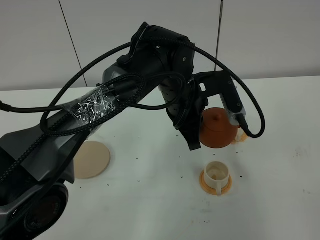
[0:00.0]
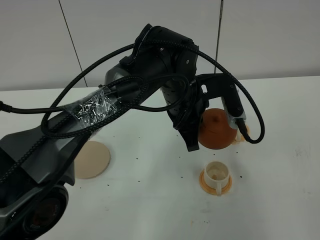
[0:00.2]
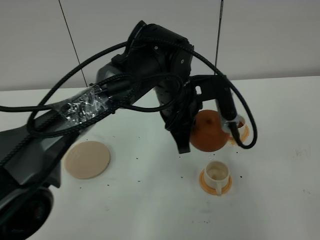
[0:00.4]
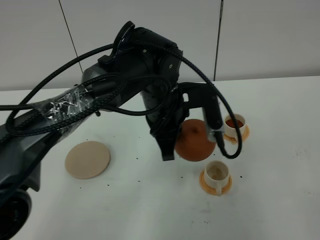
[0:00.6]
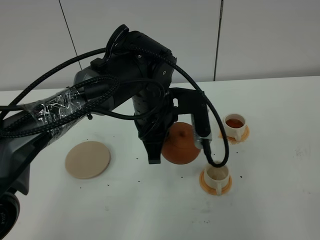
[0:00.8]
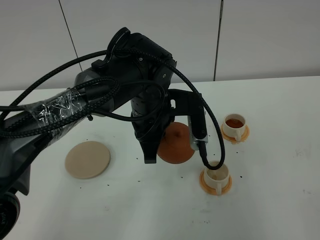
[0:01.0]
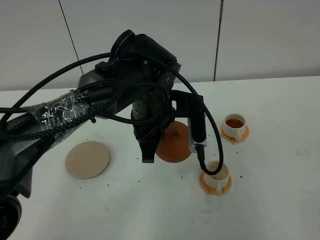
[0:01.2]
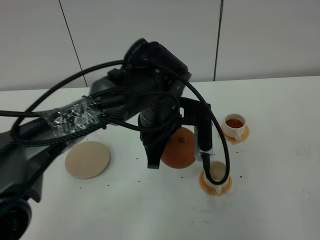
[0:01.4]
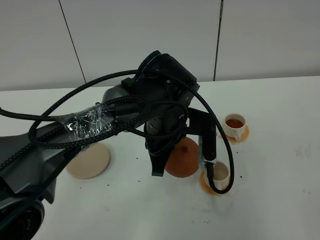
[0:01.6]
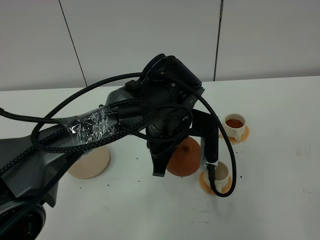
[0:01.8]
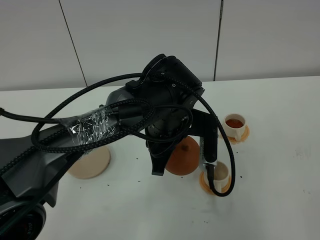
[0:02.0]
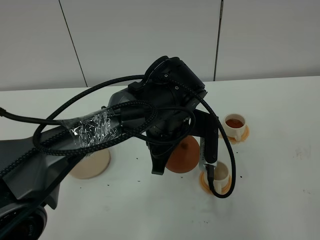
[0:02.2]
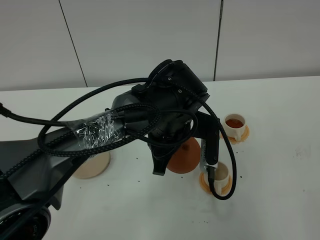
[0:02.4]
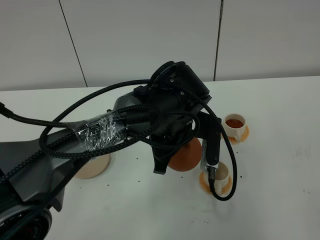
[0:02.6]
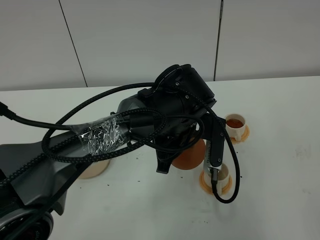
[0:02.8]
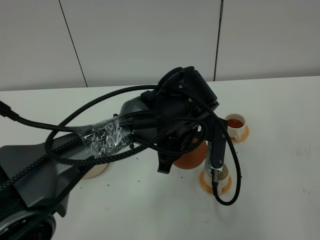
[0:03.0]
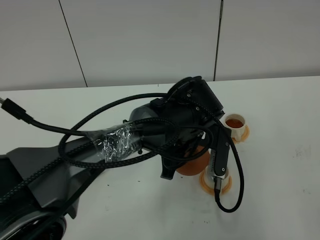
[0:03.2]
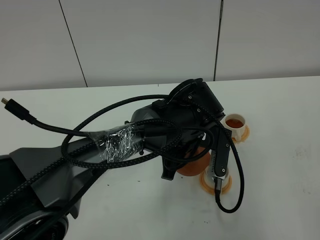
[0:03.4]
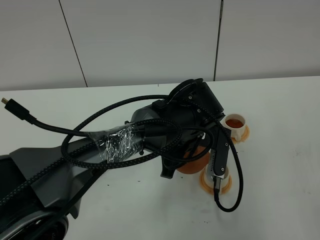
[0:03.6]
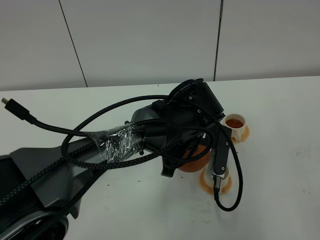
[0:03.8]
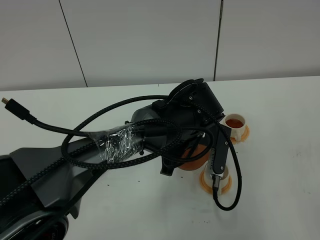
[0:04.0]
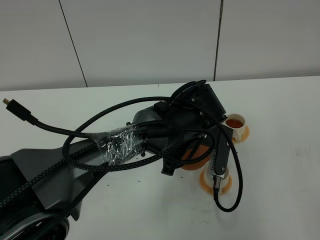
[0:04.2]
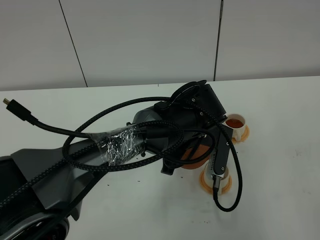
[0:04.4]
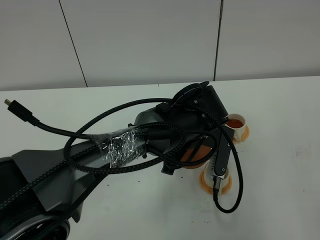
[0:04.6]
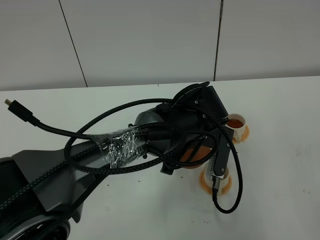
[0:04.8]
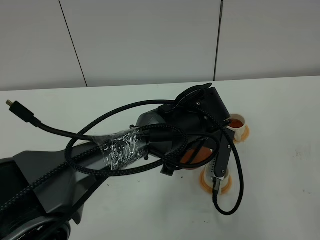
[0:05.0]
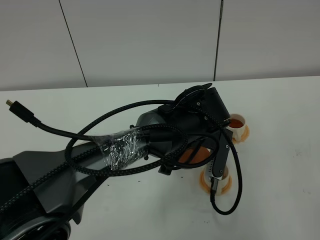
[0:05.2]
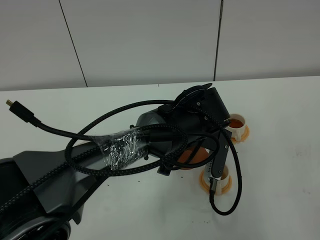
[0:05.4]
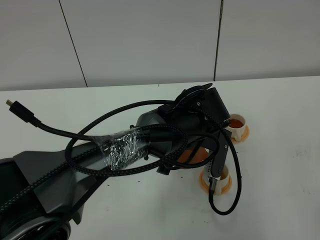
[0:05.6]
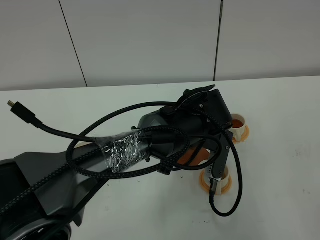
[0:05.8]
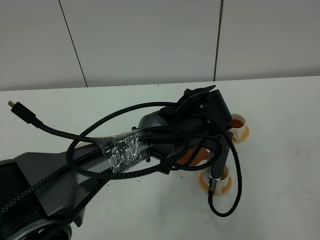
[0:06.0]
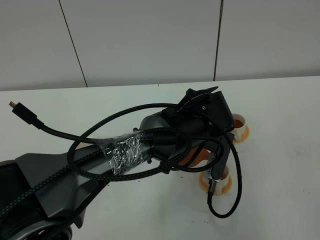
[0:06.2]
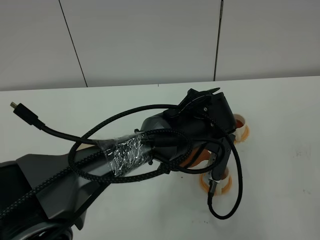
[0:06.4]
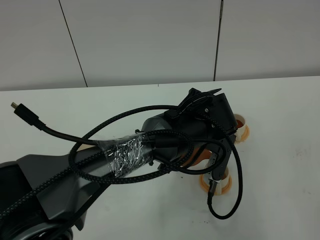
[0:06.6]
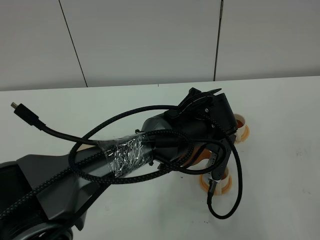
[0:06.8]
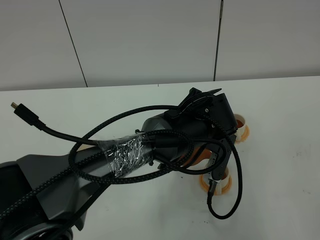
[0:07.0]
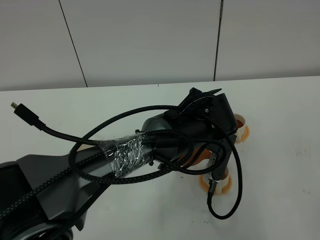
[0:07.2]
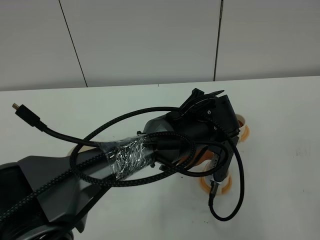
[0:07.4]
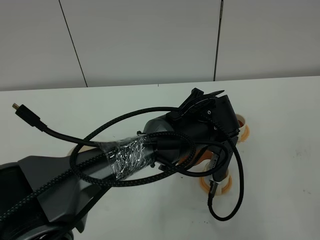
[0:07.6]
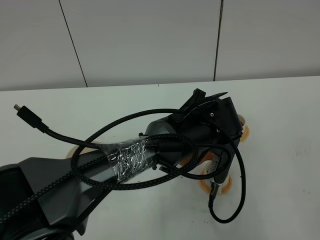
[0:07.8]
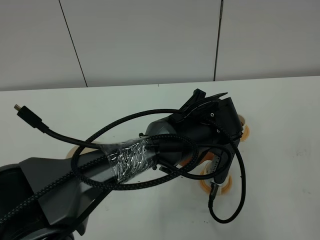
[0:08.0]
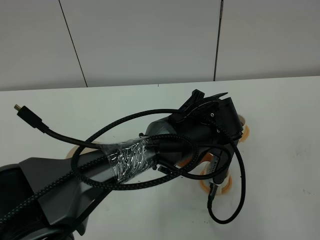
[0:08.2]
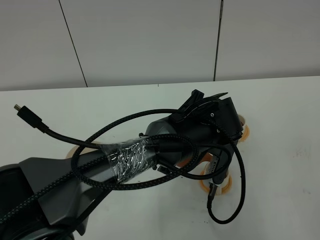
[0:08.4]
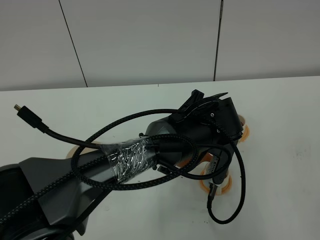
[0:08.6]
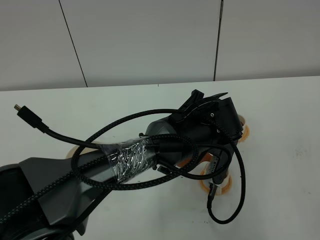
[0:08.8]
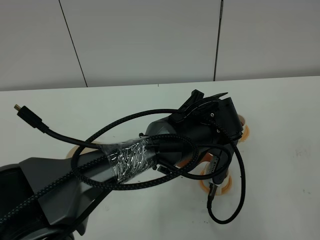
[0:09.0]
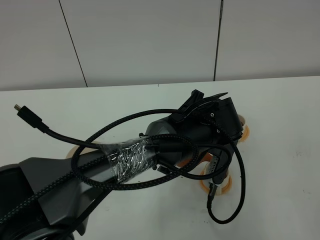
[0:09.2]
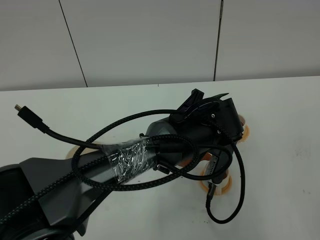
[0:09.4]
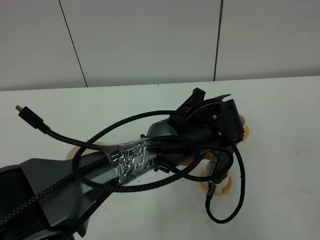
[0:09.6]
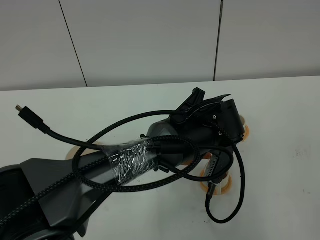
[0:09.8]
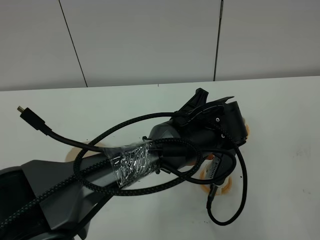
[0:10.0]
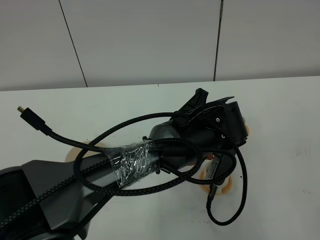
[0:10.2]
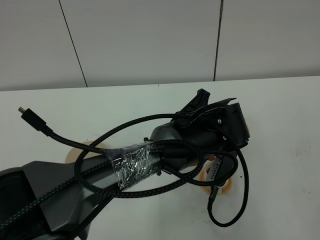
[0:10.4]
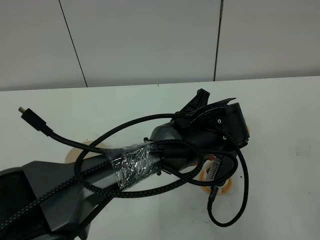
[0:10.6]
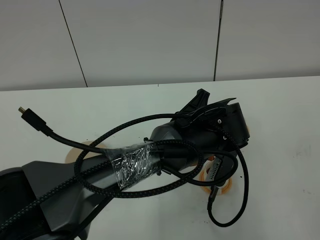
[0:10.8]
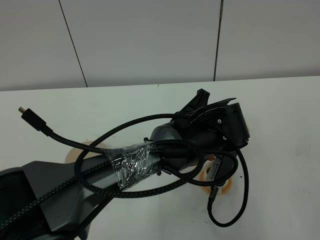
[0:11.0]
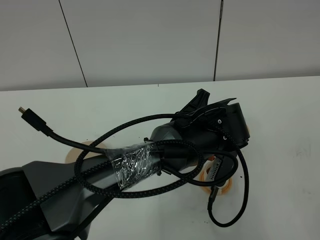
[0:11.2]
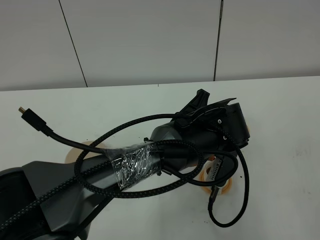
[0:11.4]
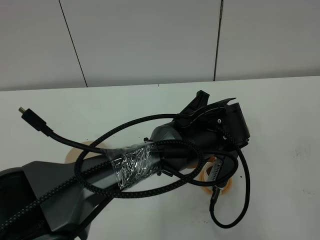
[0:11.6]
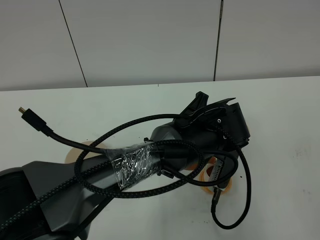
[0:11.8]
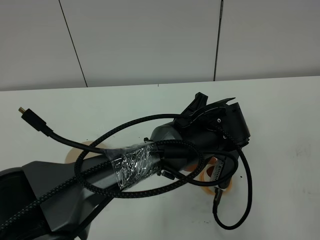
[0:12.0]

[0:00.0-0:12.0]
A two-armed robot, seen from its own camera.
Task of the whole recording: grasp the brown teapot and pour the tea into the two white teacups one by one, put the brown teapot back in its original place.
0:01.6 to 0:04.4: There are only small adjustments of the grippers.
0:04.4 to 0:06.0: The grippers stay close to where they were, moving slightly.
0:06.0 to 0:07.6: The two grippers keep their place.
0:07.6 to 0:10.4: Both grippers stay put.
0:10.4 to 0:12.0: Neither gripper changes place.

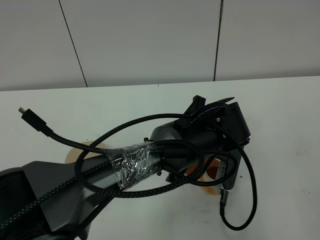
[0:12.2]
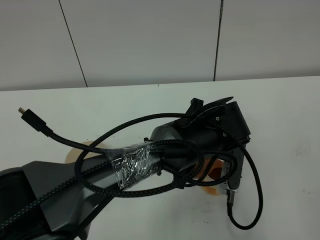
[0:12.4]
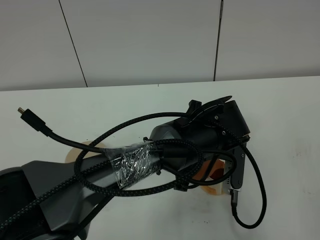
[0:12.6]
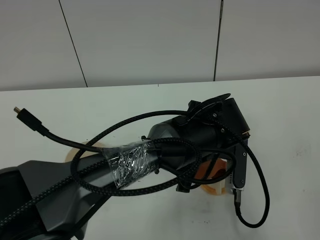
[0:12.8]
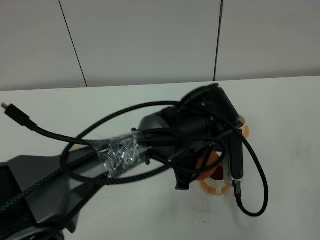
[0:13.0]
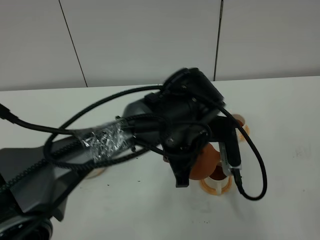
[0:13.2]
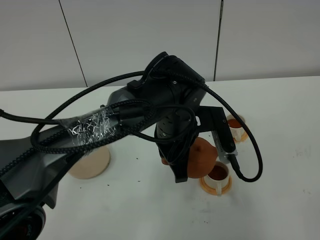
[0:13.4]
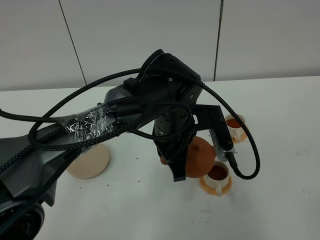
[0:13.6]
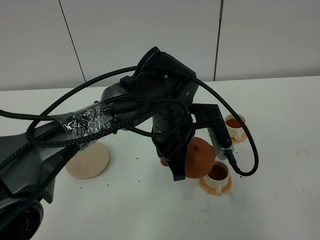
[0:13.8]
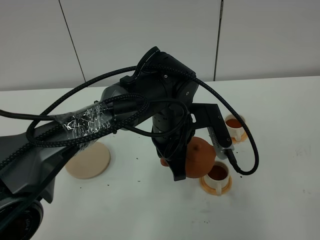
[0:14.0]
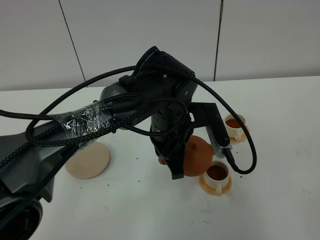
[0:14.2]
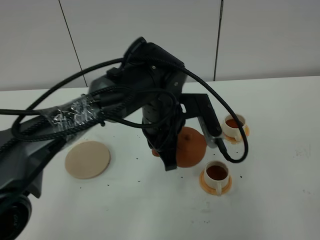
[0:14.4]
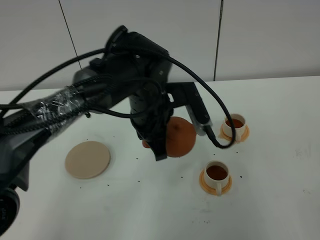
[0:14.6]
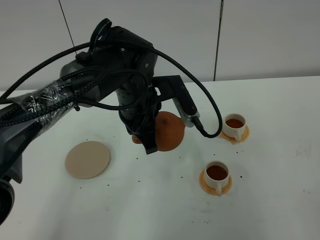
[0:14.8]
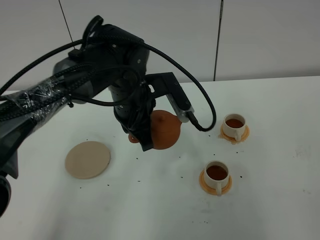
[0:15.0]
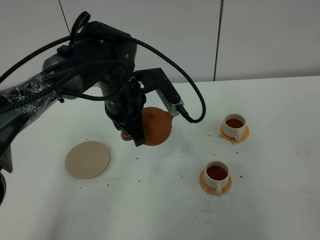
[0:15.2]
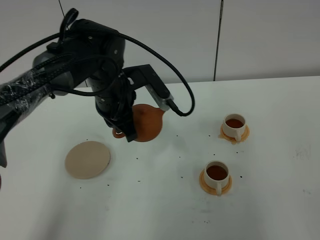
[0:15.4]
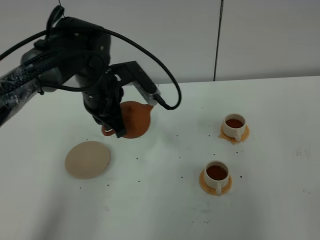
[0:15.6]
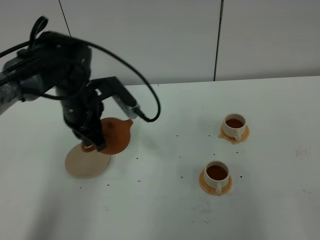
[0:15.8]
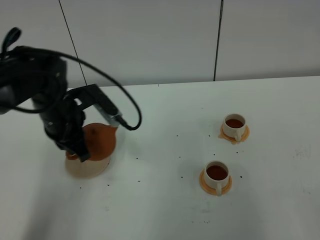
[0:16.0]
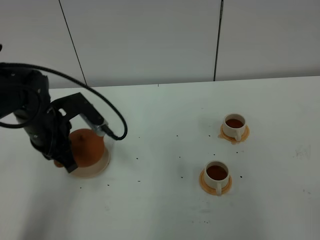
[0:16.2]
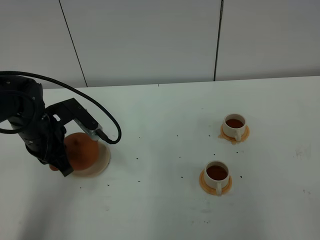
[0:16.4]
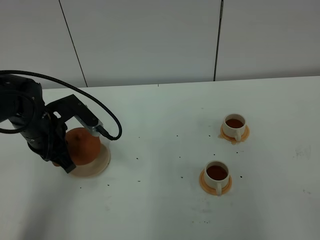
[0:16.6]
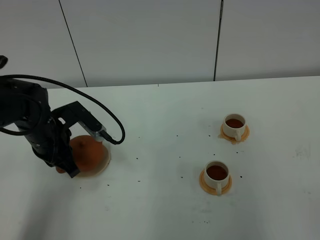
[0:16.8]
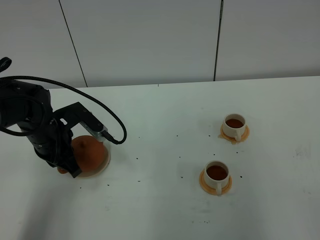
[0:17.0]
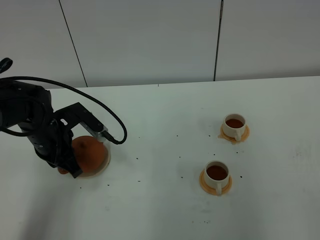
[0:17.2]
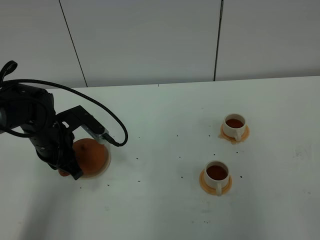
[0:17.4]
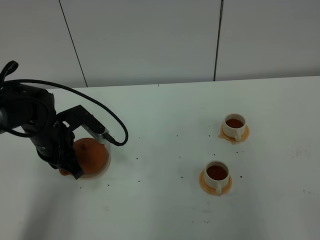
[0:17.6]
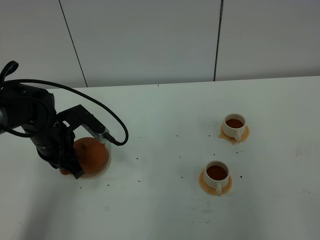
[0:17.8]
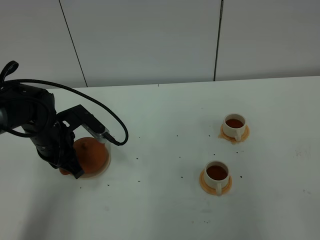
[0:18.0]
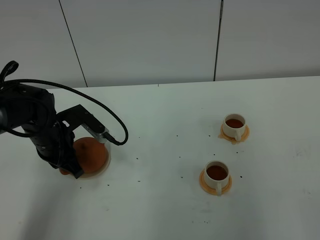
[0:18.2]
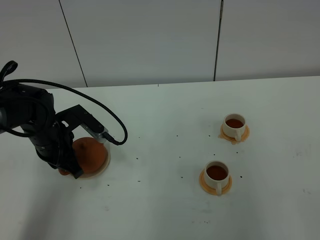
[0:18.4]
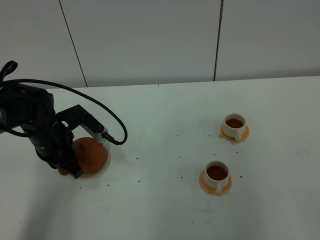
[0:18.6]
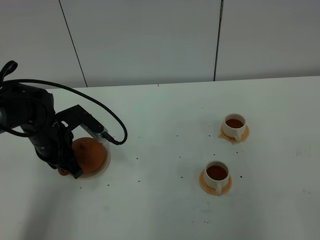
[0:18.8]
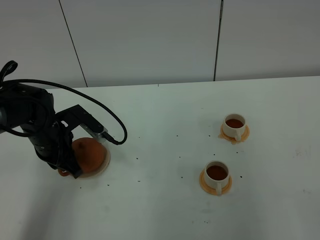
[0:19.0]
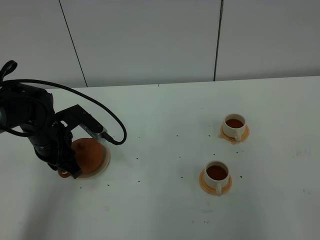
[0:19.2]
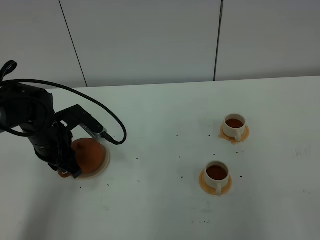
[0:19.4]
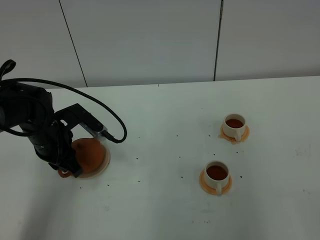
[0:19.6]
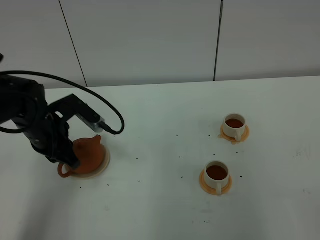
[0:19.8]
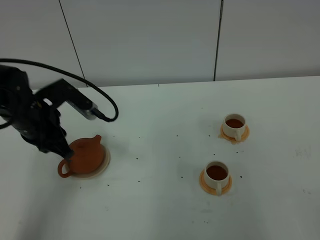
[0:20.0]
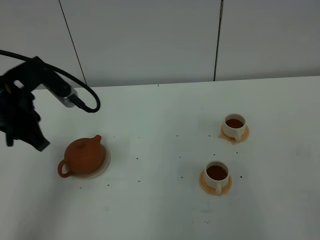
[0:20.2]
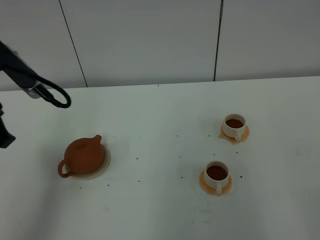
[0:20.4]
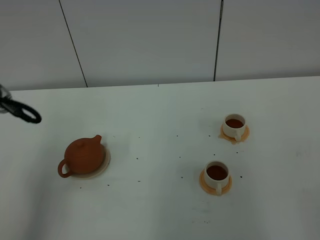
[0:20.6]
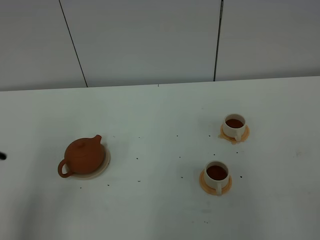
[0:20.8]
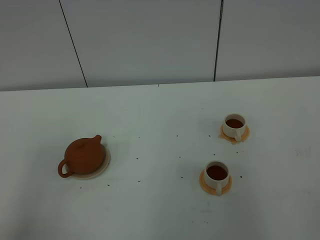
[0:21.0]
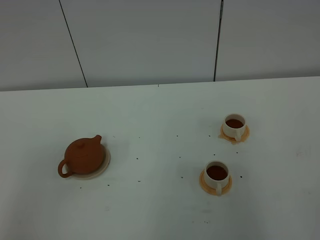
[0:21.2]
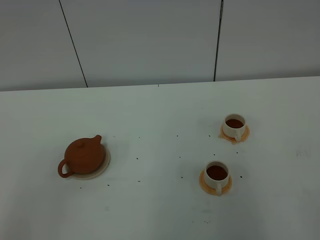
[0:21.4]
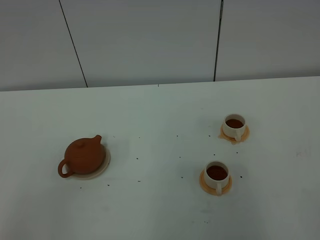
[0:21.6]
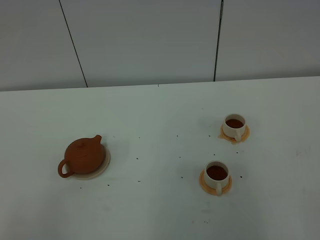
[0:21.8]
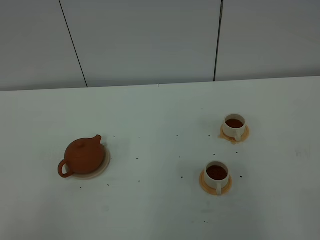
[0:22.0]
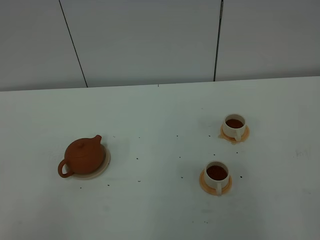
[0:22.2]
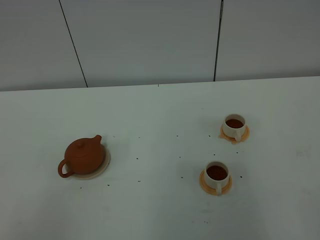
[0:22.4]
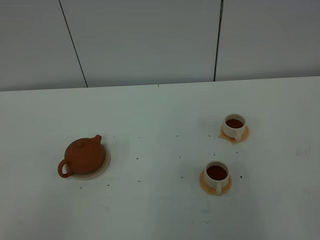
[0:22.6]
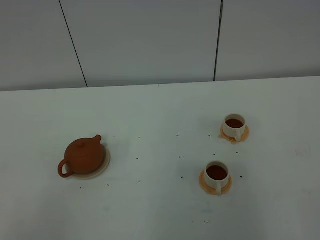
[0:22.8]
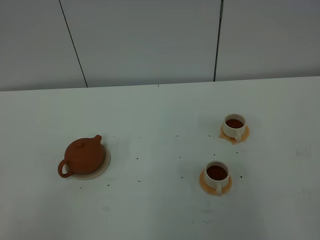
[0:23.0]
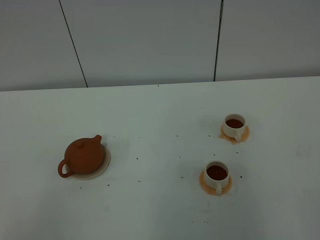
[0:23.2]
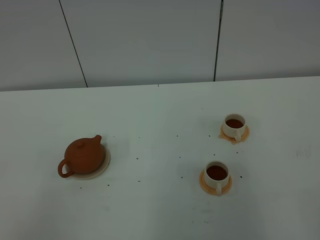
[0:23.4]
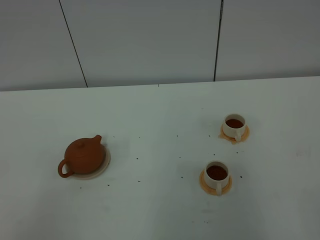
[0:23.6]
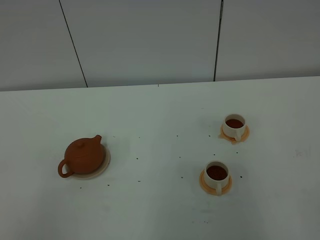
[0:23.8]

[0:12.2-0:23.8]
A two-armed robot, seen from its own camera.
Task of the whole recording: grasp the brown teapot and pour the tea into the two white teacups one by one, put the brown teapot back in its original place.
Step, 0:12.2 to 0:14.4: Pour tea into the teacup with the left gripper.
0:12.2 to 0:13.6: The left gripper ends up approximately 5 cm from where it was.
0:13.6 to 0:15.0: The left gripper heads to the left, covering about 10 cm.
0:15.0 to 0:16.6: The left gripper shifts some 15 cm to the left.
0:16.6 to 0:18.0: The grippers stay close to where they were, moving slightly.
0:18.0 to 0:19.4: The left gripper opens its fingers.
0:19.4 to 0:21.0: The left gripper is displaced backward and upward by about 40 cm, and closes up.
